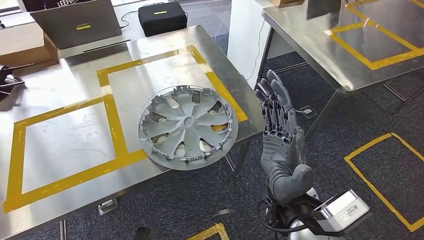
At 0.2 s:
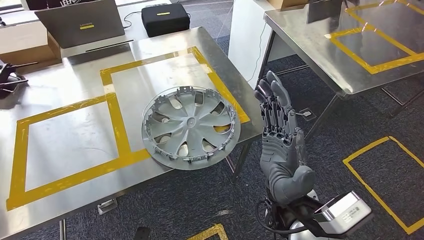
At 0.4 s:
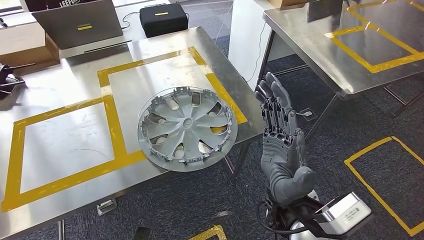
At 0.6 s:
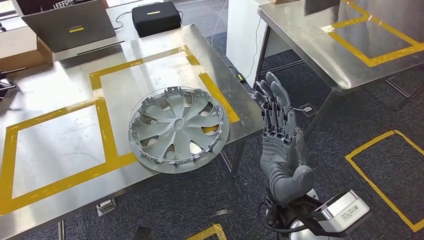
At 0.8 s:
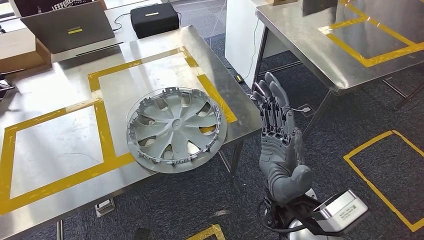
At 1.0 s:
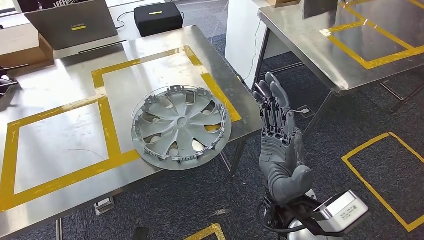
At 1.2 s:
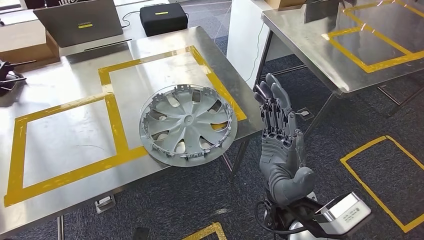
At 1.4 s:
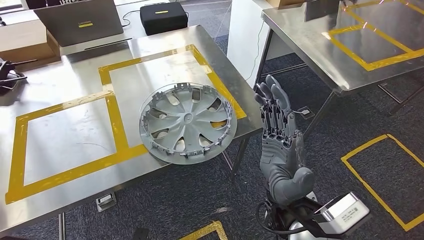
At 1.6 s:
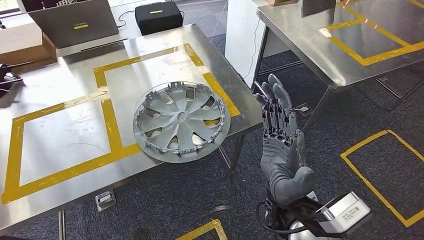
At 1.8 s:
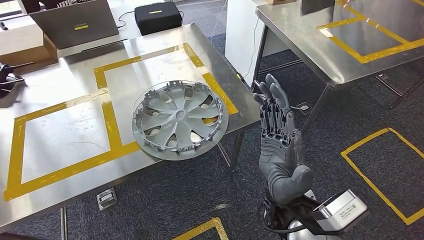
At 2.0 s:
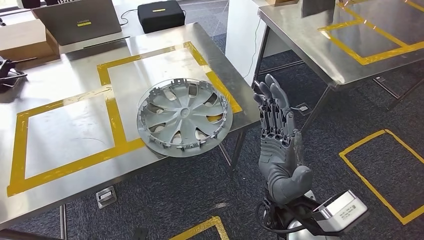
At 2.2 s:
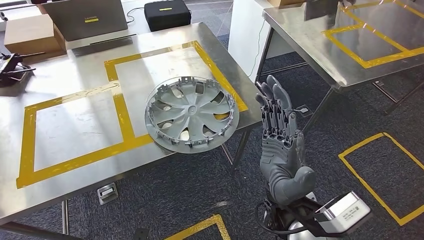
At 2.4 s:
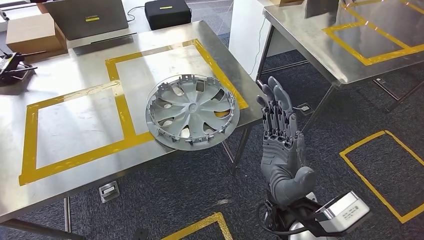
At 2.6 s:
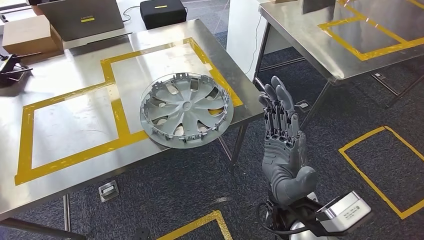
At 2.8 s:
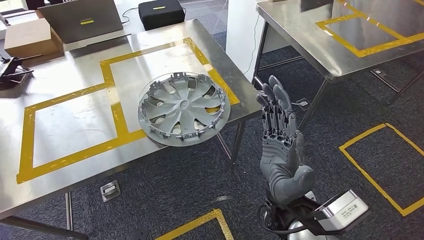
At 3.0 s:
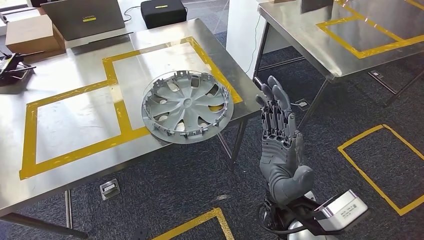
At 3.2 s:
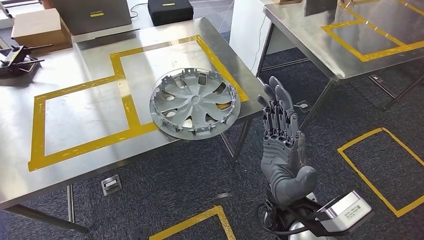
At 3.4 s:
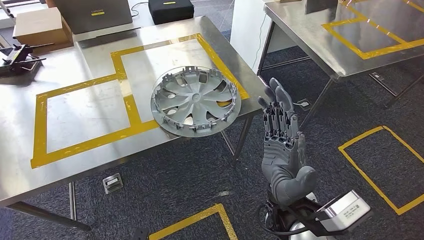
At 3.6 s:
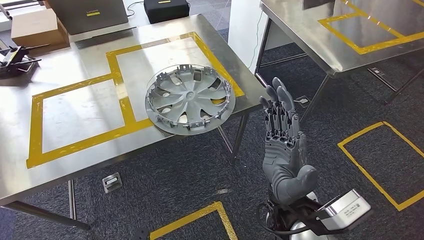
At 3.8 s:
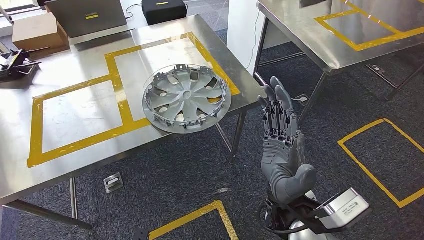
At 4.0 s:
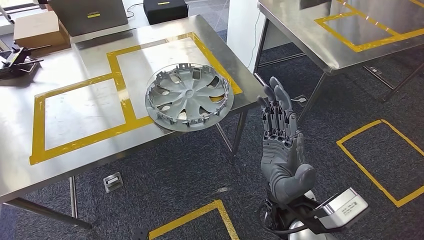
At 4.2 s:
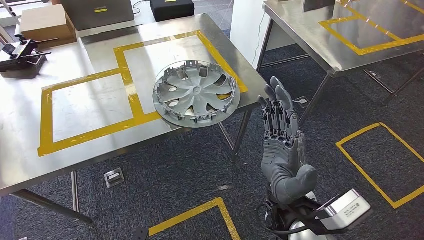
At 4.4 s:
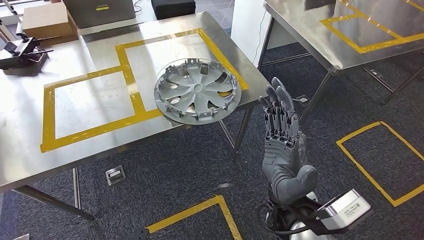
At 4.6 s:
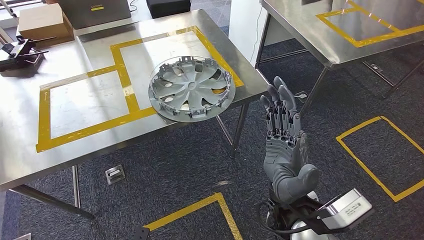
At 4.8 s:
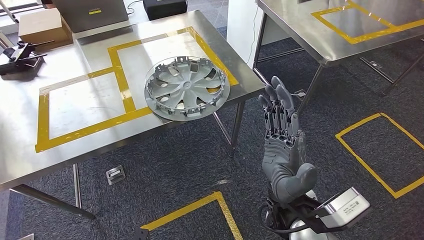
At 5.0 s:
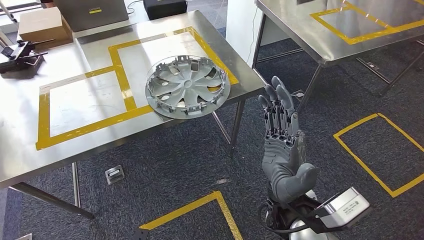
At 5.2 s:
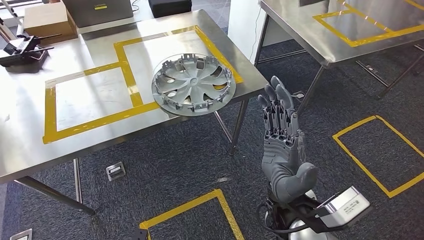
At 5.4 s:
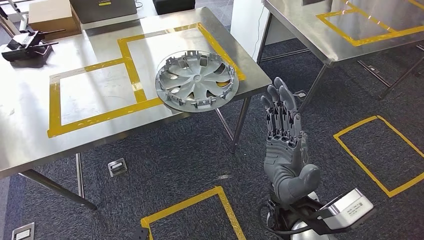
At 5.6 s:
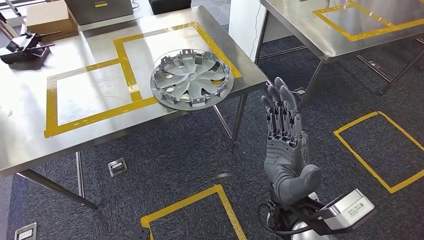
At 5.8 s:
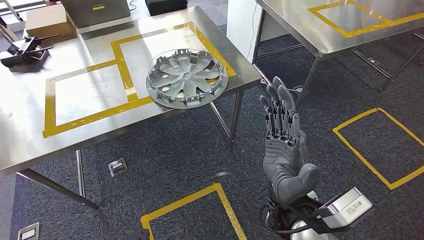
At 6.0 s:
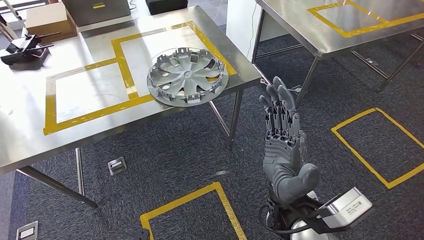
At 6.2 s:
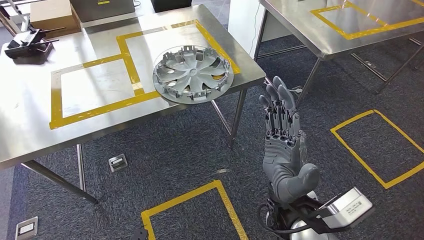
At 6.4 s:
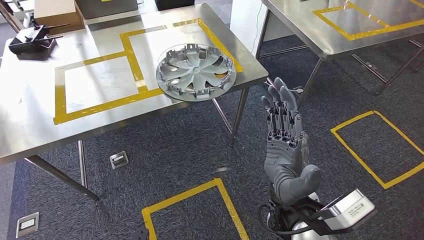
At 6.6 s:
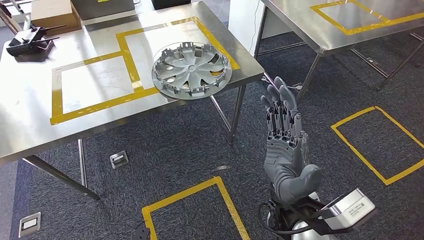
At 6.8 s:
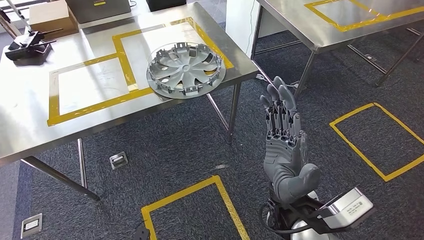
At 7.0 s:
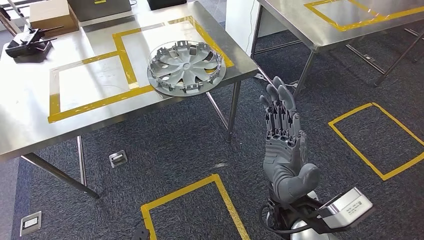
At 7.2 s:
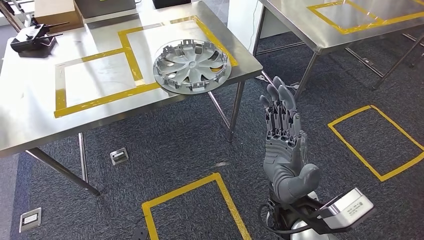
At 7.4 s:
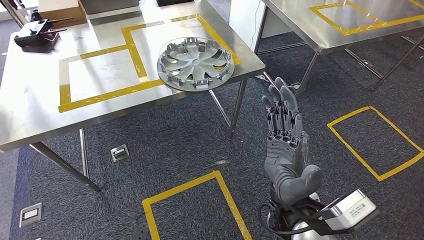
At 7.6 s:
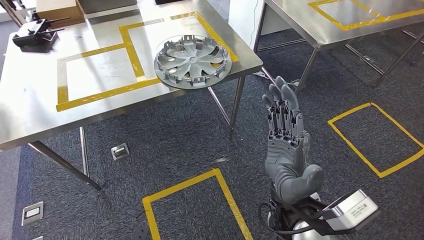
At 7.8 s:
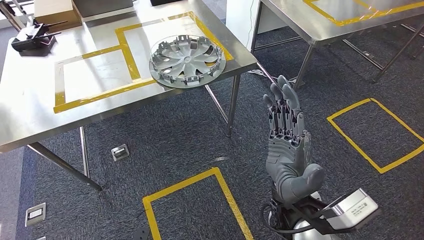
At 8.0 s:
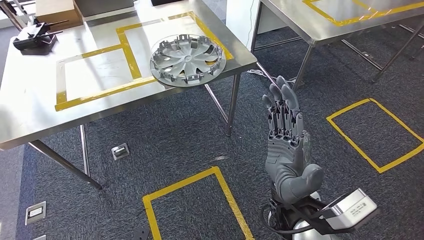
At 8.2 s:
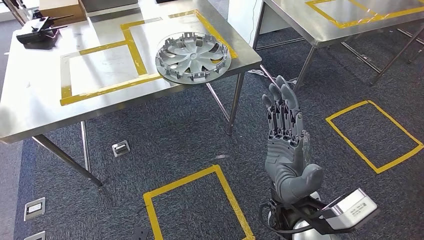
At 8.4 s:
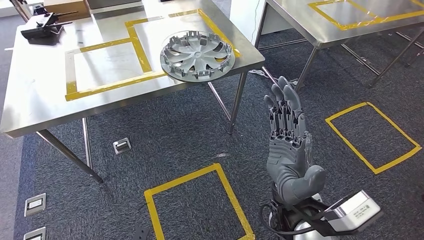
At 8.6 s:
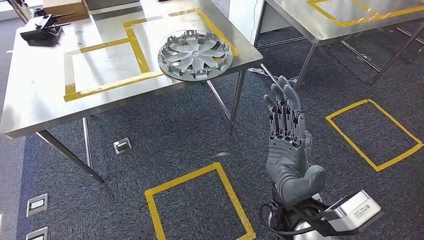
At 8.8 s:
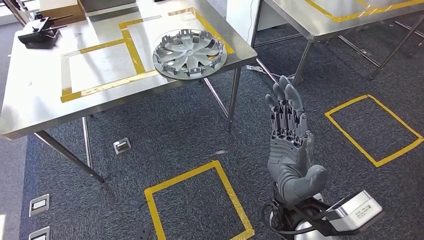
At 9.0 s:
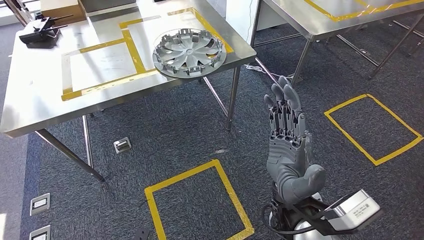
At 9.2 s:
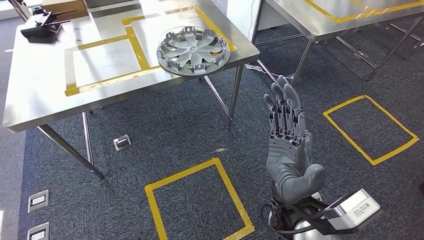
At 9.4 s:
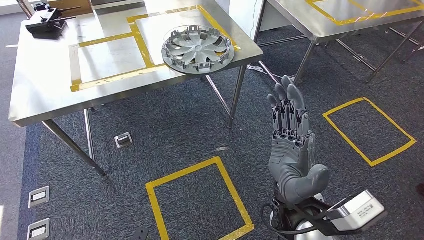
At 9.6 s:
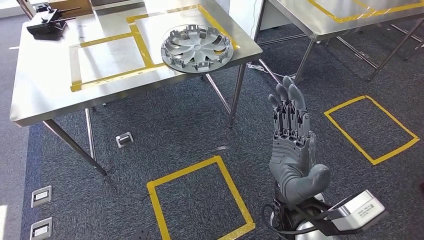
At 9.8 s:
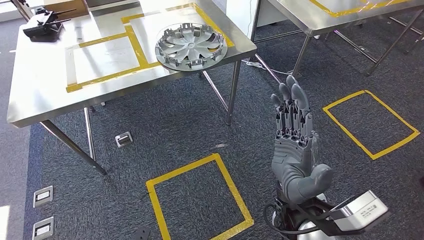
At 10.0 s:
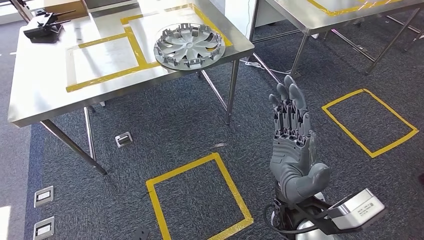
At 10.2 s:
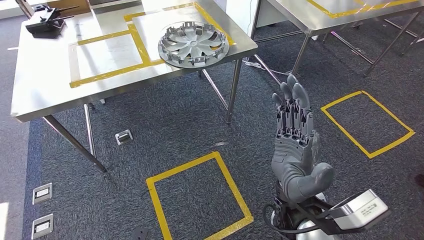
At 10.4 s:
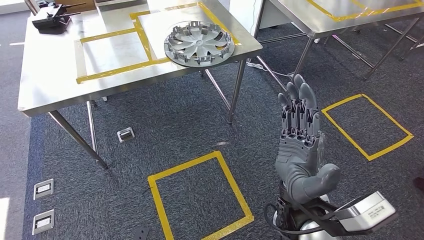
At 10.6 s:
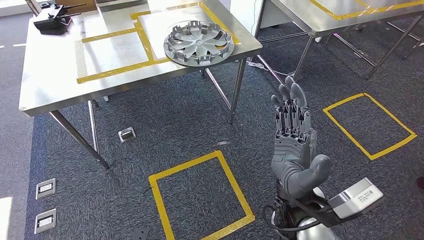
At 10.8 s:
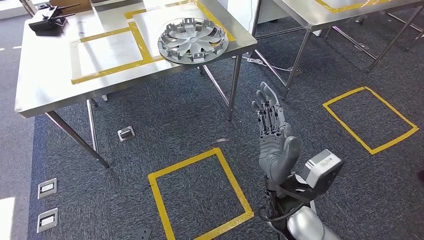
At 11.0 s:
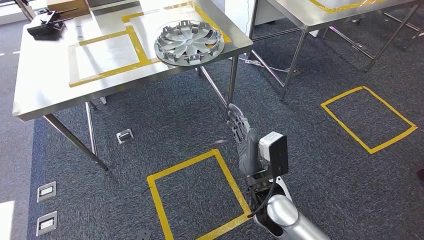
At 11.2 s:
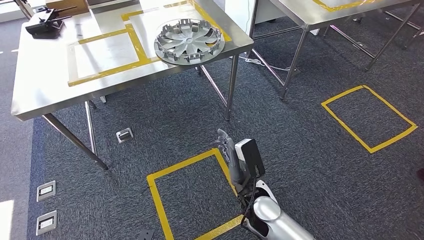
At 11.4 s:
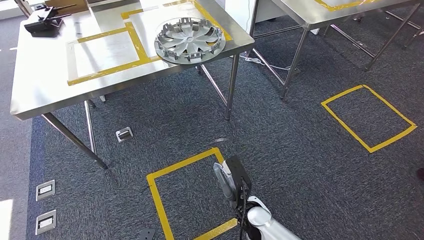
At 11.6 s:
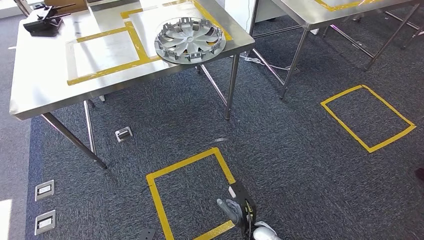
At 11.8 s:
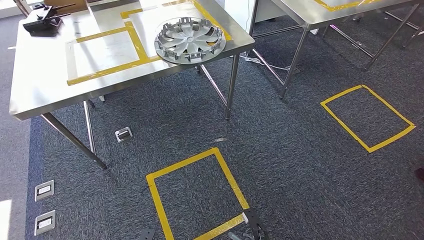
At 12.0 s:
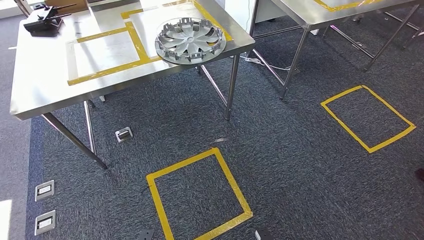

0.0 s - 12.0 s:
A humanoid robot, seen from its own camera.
Step, 0.0 s - 5.2 s: Insert the large material into the corresponding hole on the workbench.
Step, 5.4 s - 11.8 s: Move to the initial position of the shelf.
